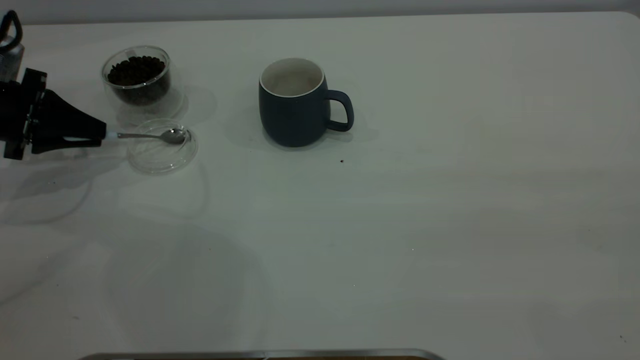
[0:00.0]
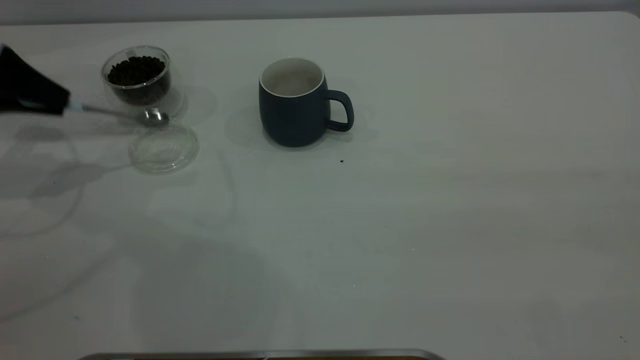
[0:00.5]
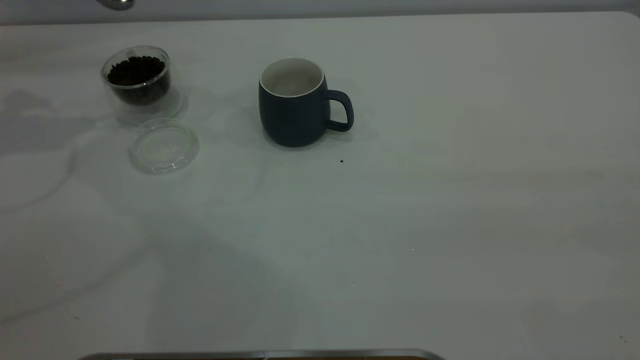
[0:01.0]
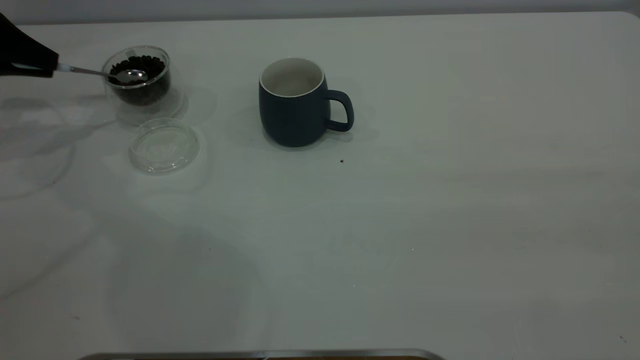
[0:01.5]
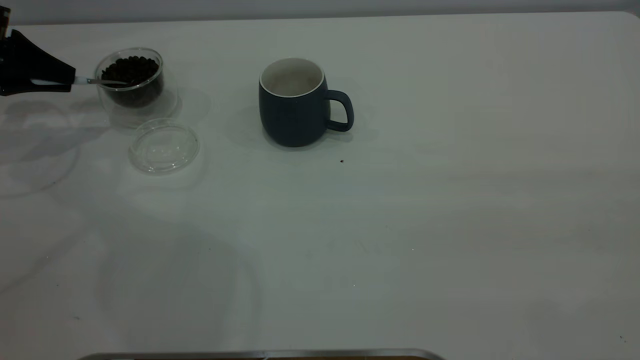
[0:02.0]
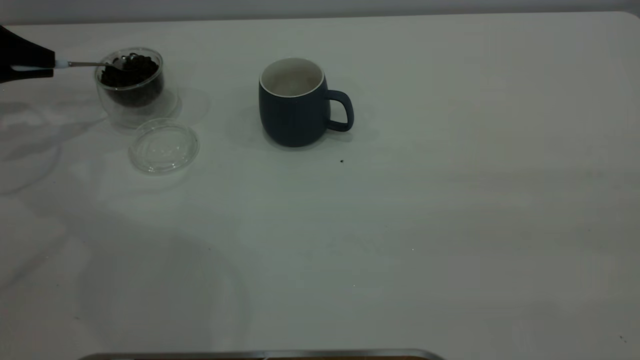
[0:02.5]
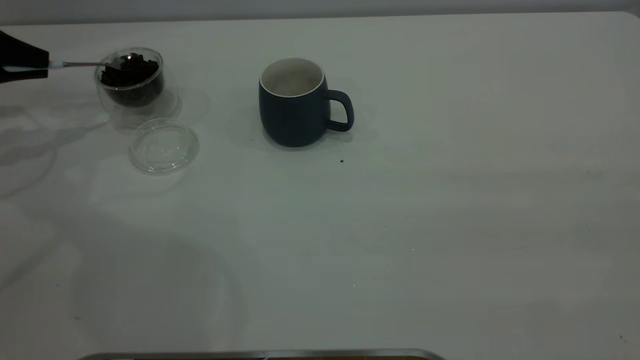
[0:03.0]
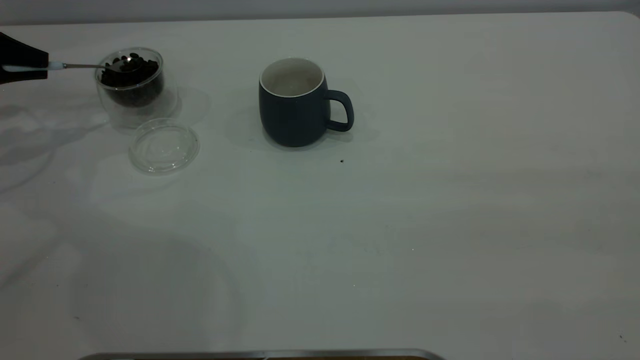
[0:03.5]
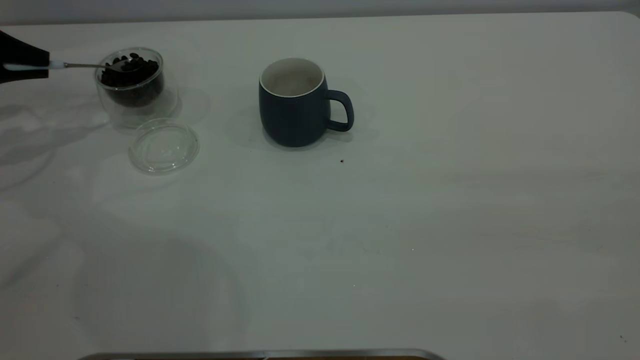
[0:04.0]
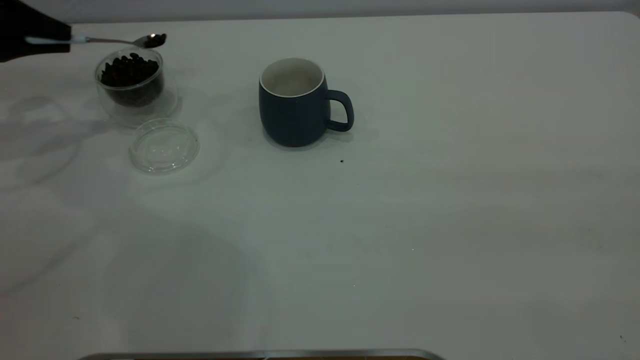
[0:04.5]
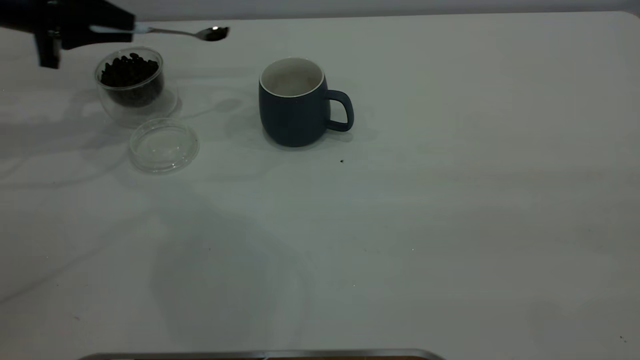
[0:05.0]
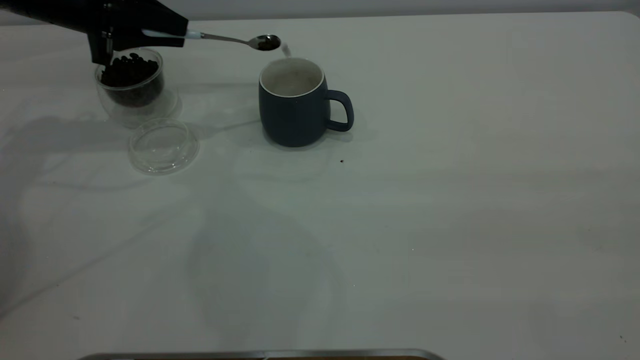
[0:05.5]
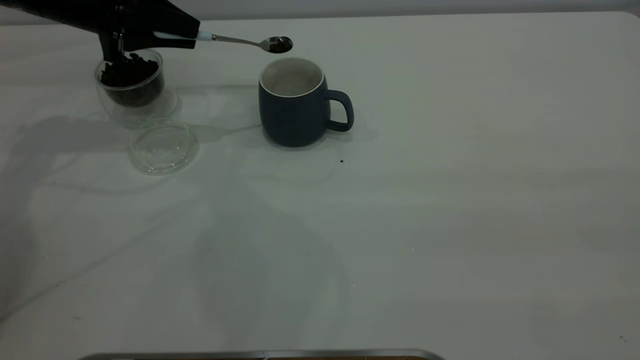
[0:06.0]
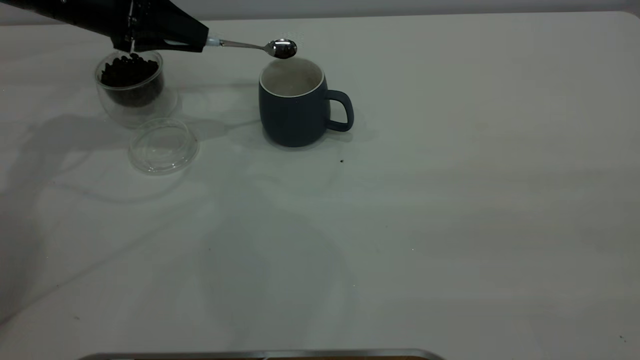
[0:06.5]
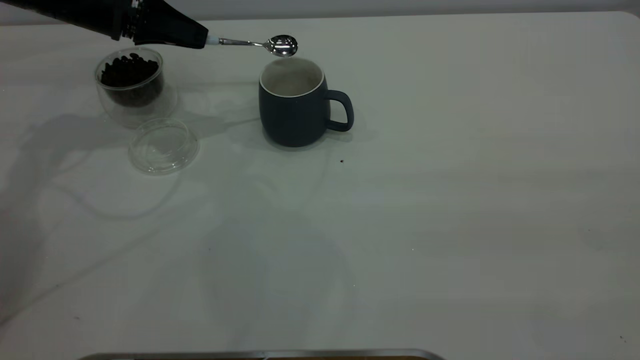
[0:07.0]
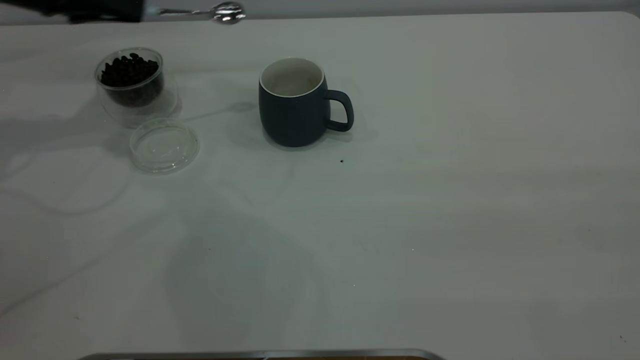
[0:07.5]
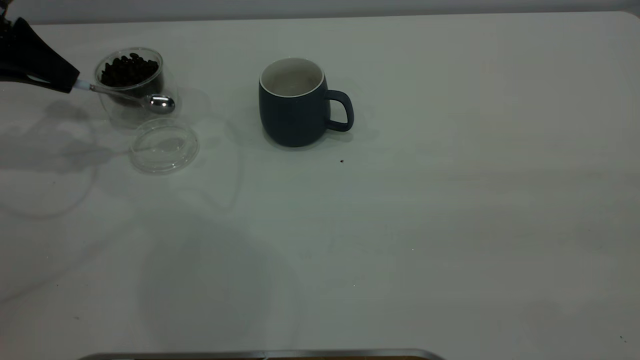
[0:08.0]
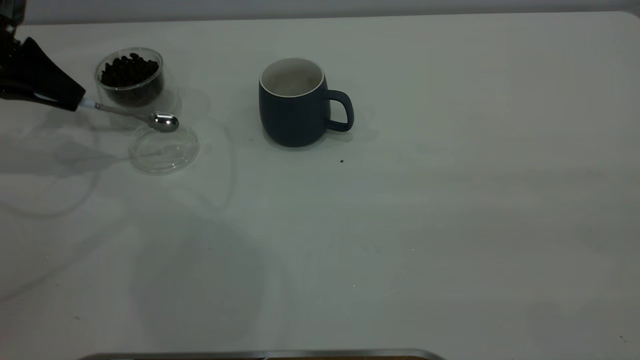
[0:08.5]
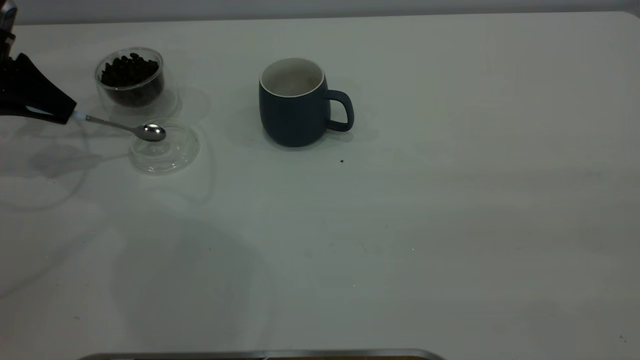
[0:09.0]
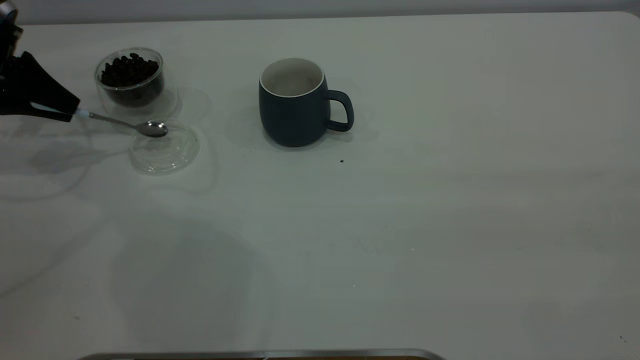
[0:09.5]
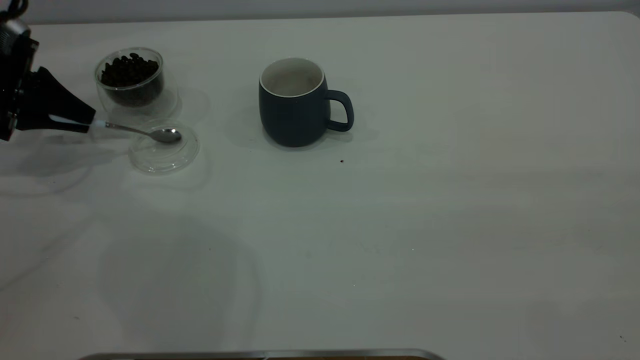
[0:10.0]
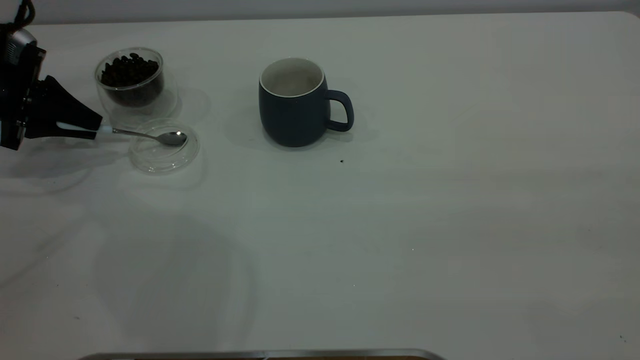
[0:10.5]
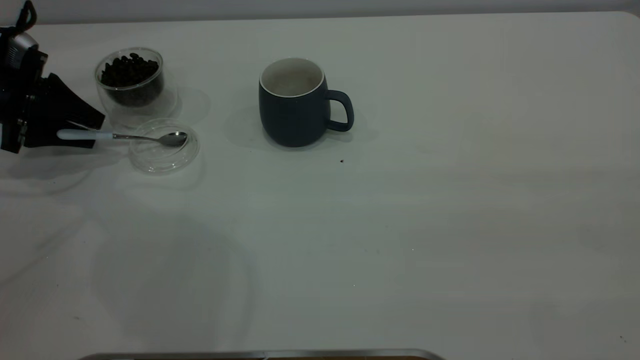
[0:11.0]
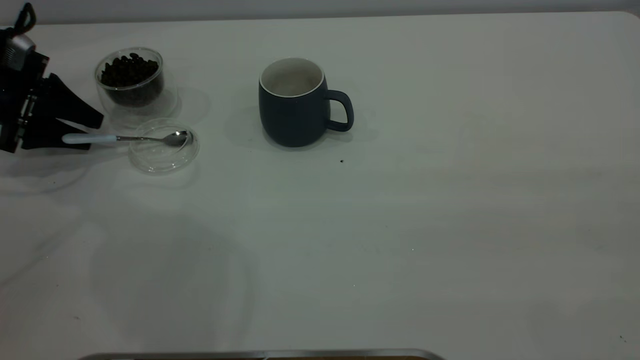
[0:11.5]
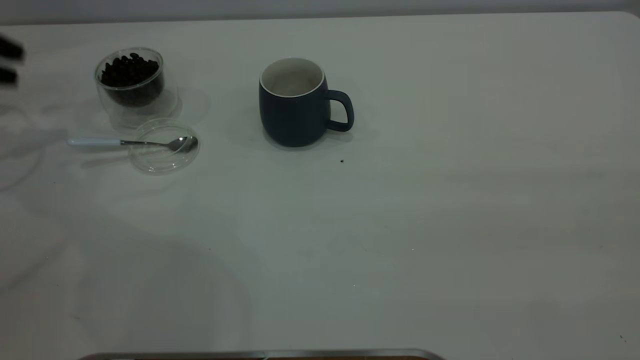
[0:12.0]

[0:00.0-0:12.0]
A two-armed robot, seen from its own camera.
Task of the whole recording: the right gripper place the grey cup in the center of the table, the left gripper take the blue spoon from the cup lid and scoop out the coffee beans from the coffee cup and put them into the grey cup, the left gripper put the spoon back into the cup lid.
Step, 0:01.0 to 0:07.0: Scoop a spoonful of beans into the cup.
Step, 0:07.5 to 0:12.0: Place the spoon back in its original place.
0:00.0 to 0:02.0: The left gripper heads forward, covering roughly 5 cm, and moves roughly 15 cm upward and comes back.
0:02.0 to 0:04.0: The grippers stay close to where they were, moving slightly.
0:04.0 to 0:06.0: The left gripper is displaced to the right by roughly 15 cm.
0:06.0 to 0:08.0: The left gripper shifts approximately 10 cm to the left.
0:08.0 to 0:10.0: The left gripper is displaced downward by about 5 cm.
0:10.0 to 0:12.0: The left gripper goes about 10 cm upward and to the left, and opens.
